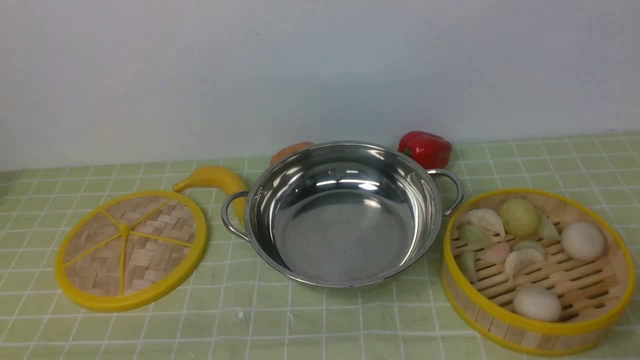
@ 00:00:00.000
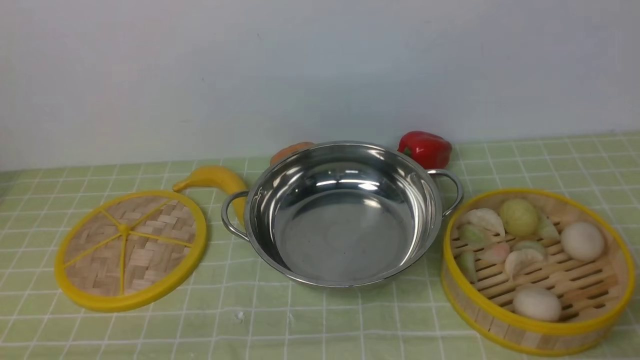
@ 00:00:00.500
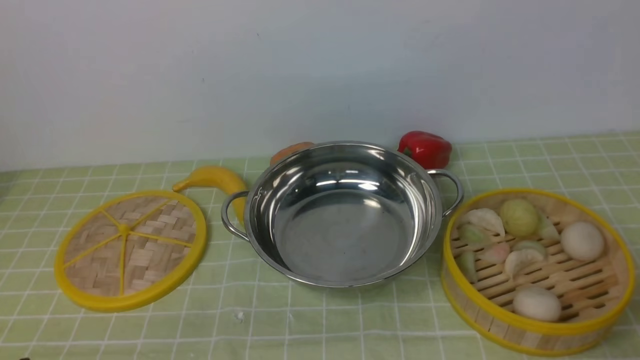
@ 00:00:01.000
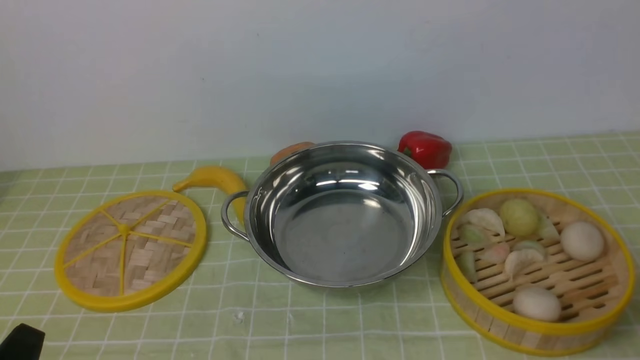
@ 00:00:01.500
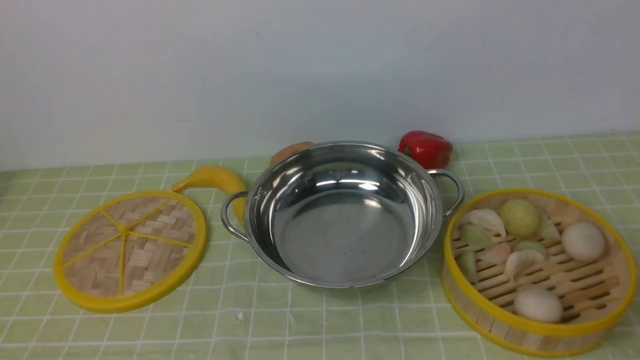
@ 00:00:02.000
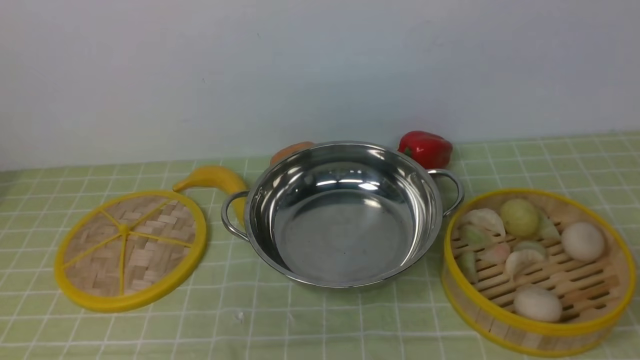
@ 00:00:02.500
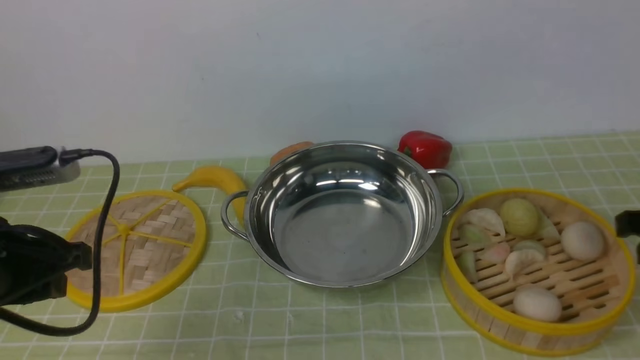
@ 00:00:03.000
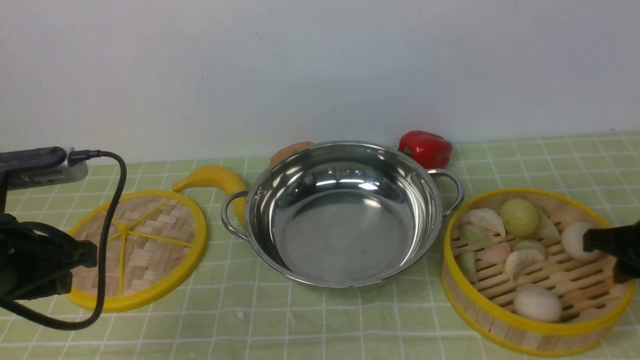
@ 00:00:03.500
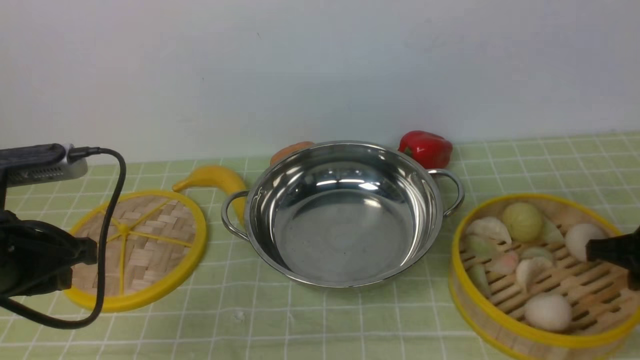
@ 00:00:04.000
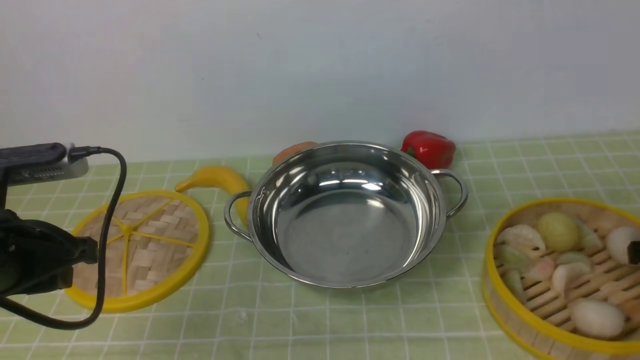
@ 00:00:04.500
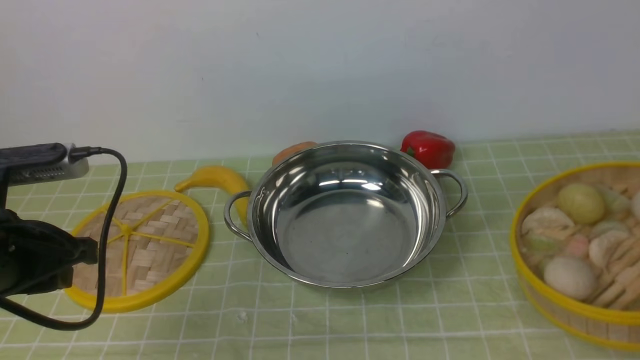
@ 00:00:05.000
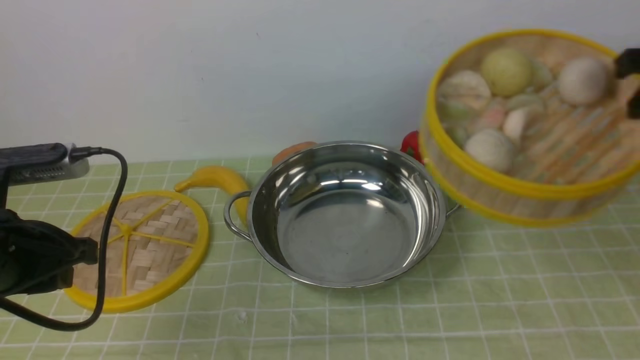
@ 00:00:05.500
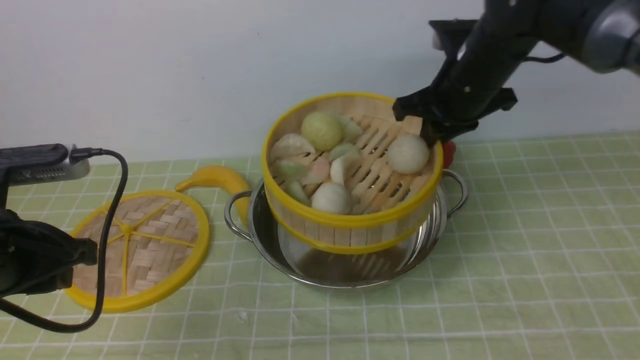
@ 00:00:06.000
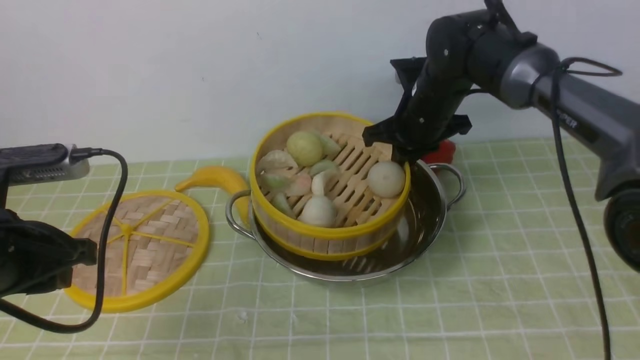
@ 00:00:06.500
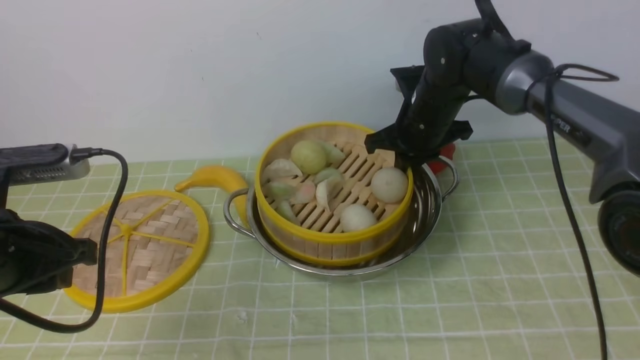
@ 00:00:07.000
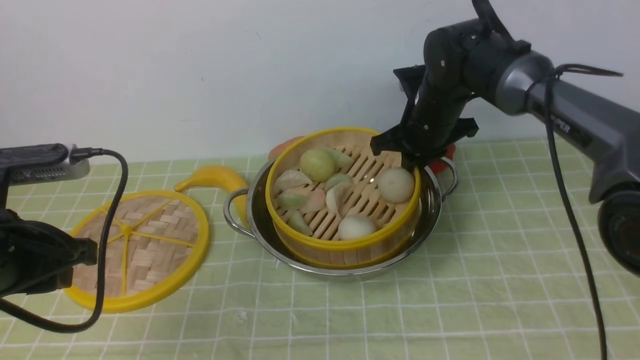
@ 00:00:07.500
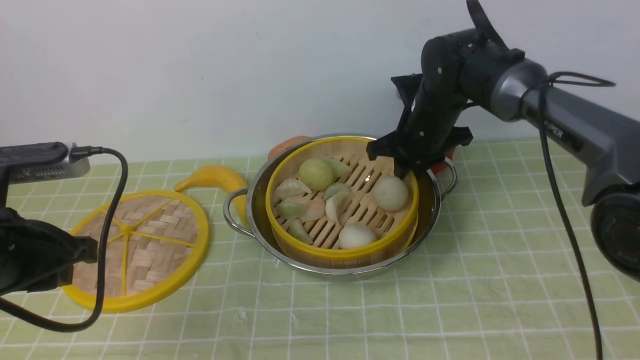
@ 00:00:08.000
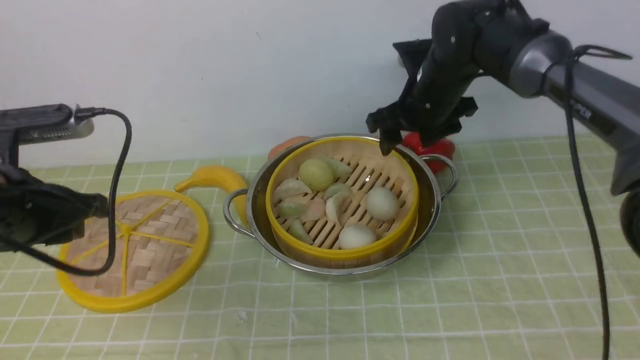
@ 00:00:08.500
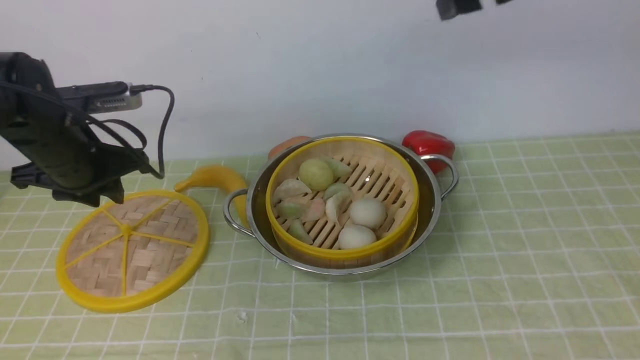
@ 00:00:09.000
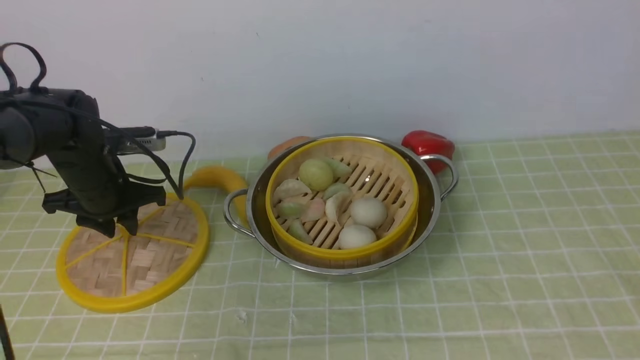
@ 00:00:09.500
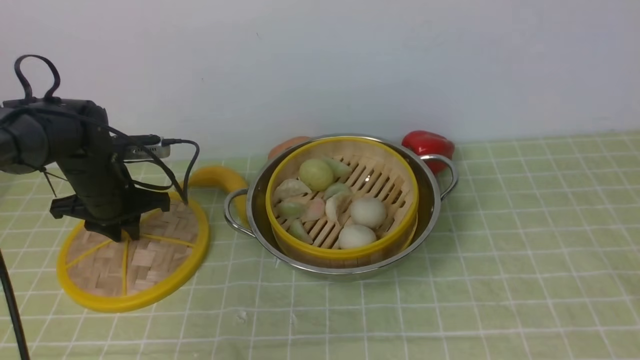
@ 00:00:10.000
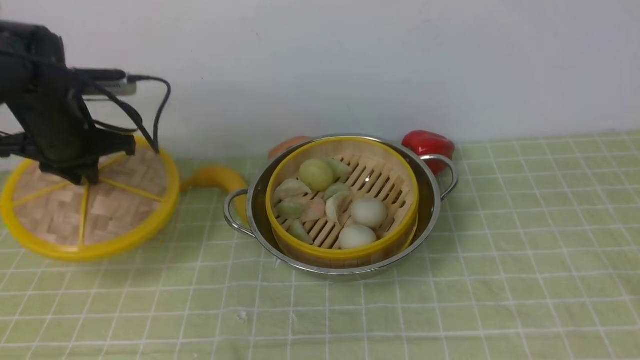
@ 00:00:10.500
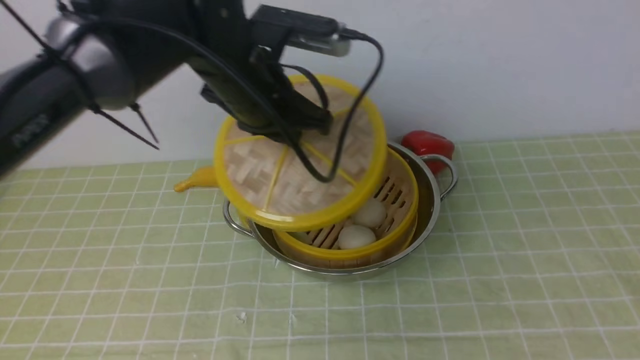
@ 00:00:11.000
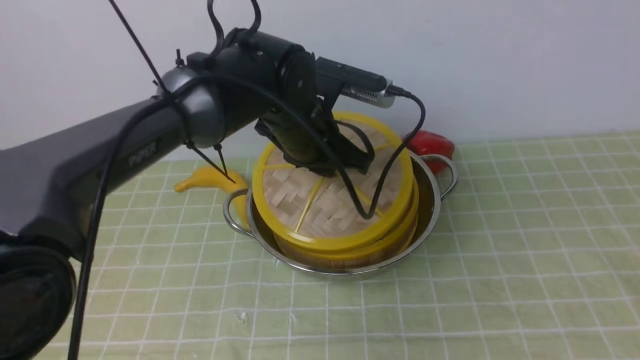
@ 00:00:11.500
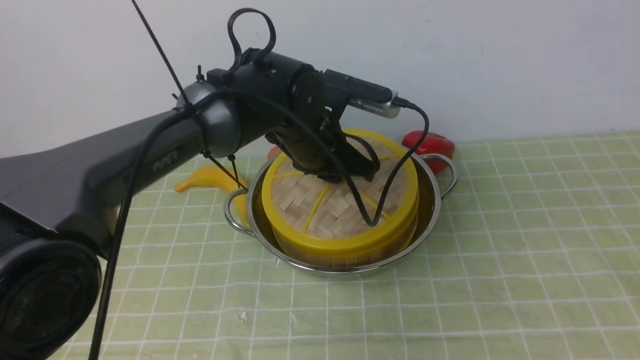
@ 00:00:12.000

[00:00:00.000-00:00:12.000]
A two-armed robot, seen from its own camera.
Task of the whole recording: place the steamer in the pot on the green tablecloth, and put the lid on the steamer.
Step, 00:00:00.000 to 00:00:05.000: use the right arm to lift the steamer closest to it.
Step, 00:00:05.500 to 00:00:09.000: use the right arm to put the steamer into the iron steamer pot in the middle.
Step, 00:00:09.500 to 00:00:10.500: use the left arm to lift the lid of the steamer.
00:00:02.000 to 00:00:04.000: The left gripper travels forward by approximately 20 cm. Meanwhile the right gripper is displaced forward and downward by about 25 cm.
00:00:04.000 to 00:00:06.000: The right gripper moves to the left, forward and upward, approximately 25 cm.
00:00:06.000 to 00:00:08.000: The right gripper is displaced downward by some 10 cm.
00:00:08.000 to 00:00:10.000: The right gripper travels backward, upward and to the right by some 60 cm, and opens its fingers, while the left gripper moves forward and downward, roughly 25 cm.
00:00:10.000 to 00:00:12.000: The left gripper moves to the right, roughly 25 cm.

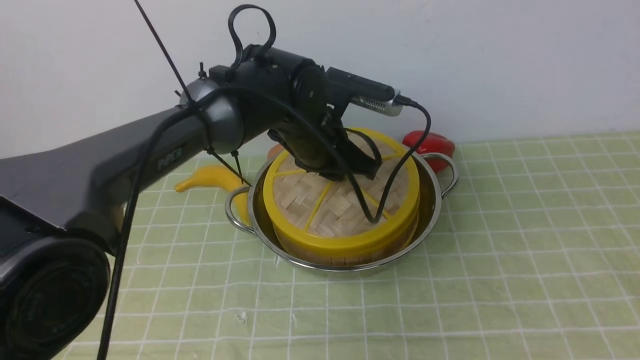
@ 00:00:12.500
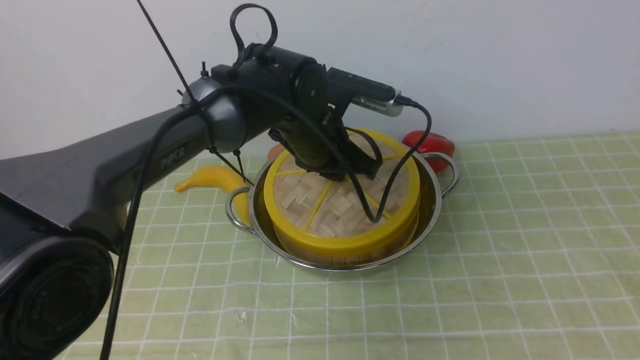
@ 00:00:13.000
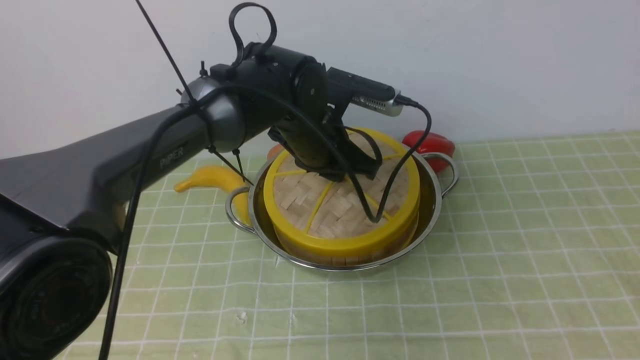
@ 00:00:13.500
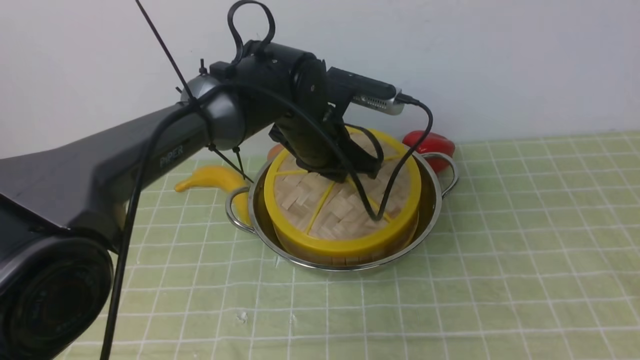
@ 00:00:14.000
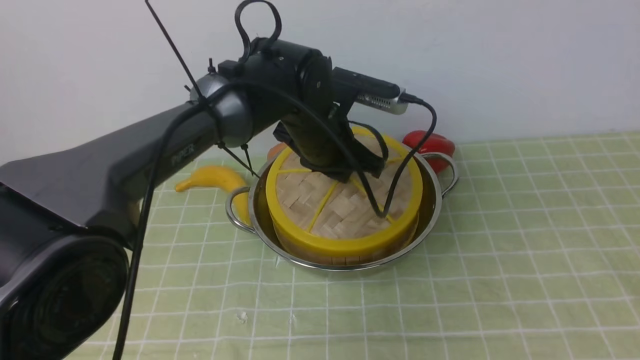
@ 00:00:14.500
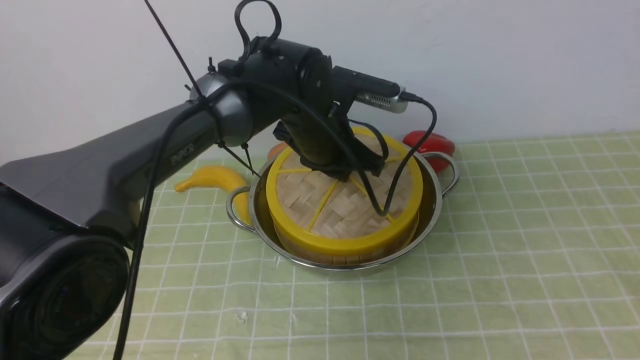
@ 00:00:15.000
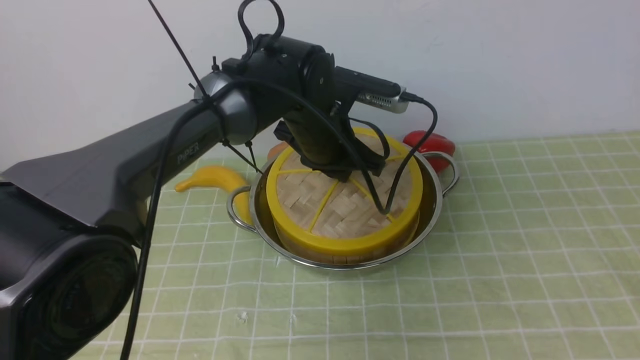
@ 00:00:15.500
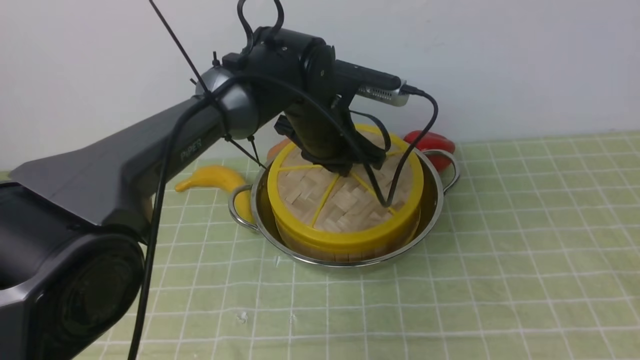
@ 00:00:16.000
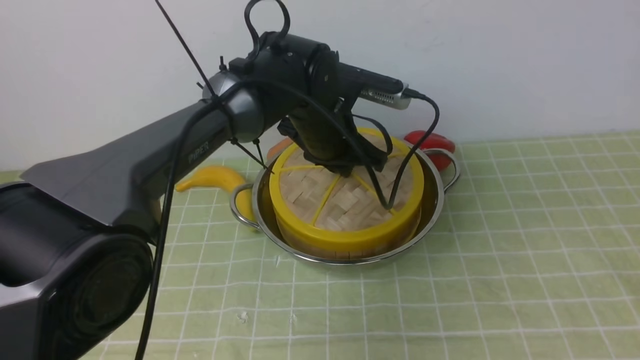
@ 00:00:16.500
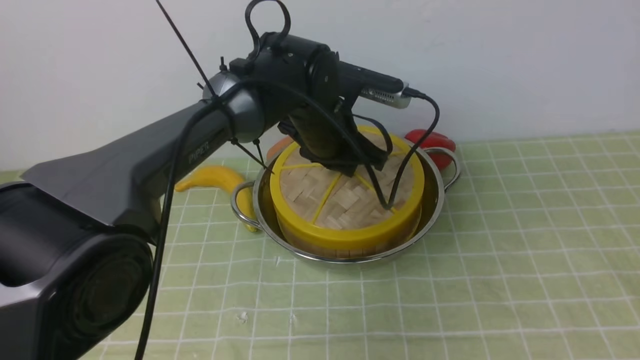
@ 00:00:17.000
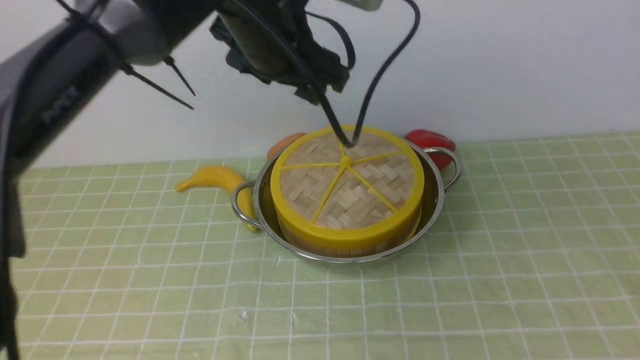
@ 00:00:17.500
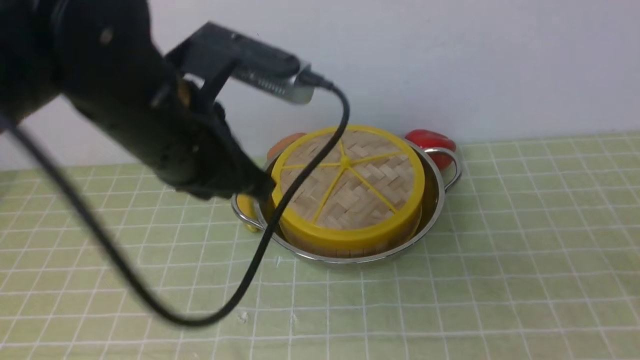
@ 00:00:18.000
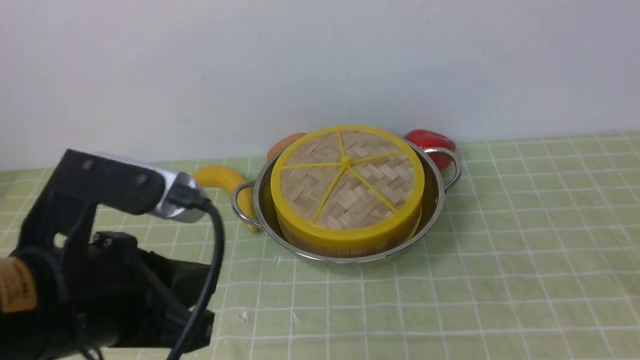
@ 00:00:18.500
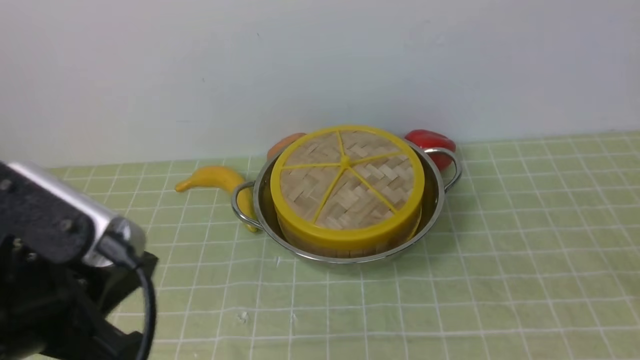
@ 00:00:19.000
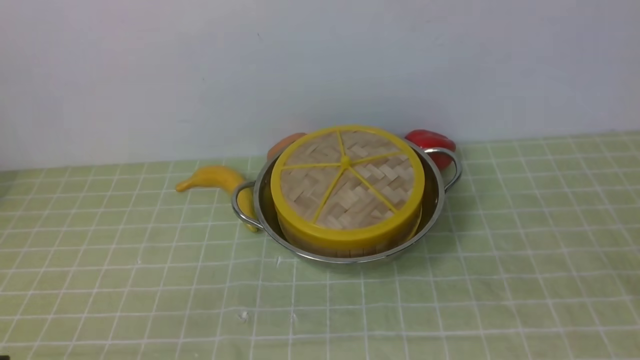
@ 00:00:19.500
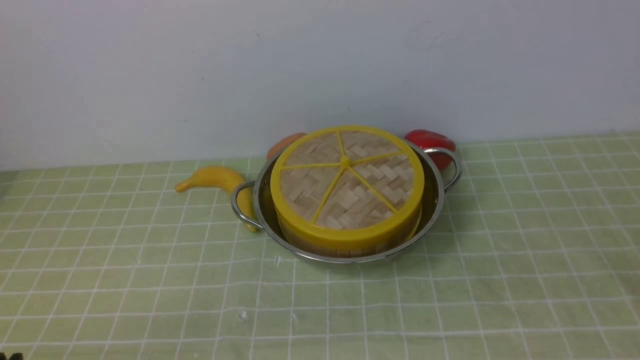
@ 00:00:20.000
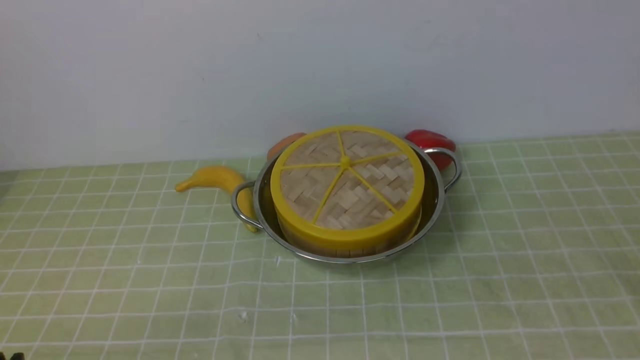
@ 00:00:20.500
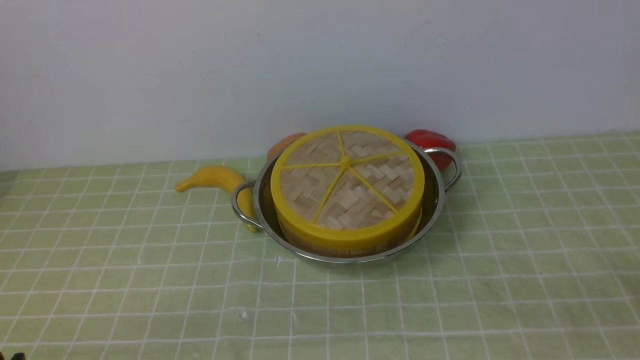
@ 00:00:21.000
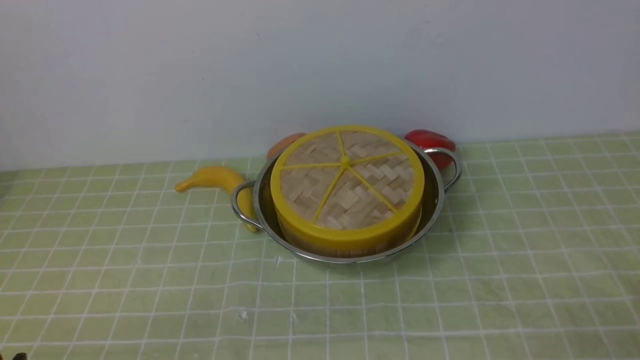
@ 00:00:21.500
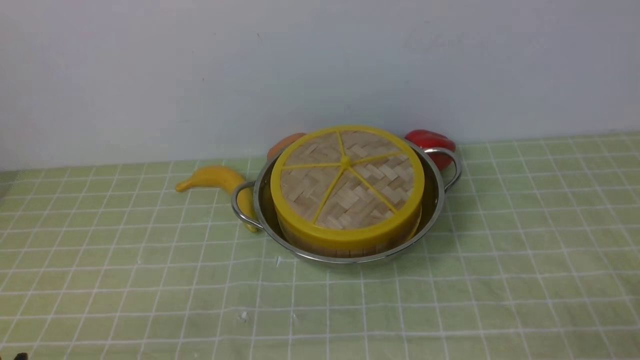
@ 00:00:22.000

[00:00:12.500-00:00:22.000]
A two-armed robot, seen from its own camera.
Task of the whole recording: place the steamer in the pot on the green tablecloth, and put the lid on the steamer.
Step, 00:00:12.500 to 00:00:17.000: use the left arm to place the steamer lid on the steamer.
00:00:12.500 to 00:00:14.500: Neither gripper changes place.
00:00:14.500 to 00:00:16.500: Both grippers stay about where they are.
00:00:16.500 to 00:00:18.000: The left gripper travels backward, upward and to the left by some 25 cm, and opens and closes again, while the right gripper is displaced downward and forward by some 15 cm, and closes.
00:00:18.000 to 00:00:20.000: The left gripper goes roughly 30 cm backward, downward and to the left.
